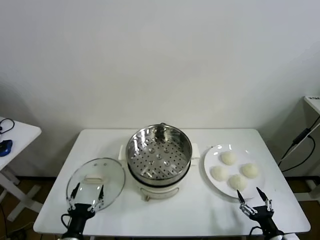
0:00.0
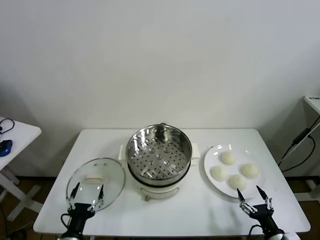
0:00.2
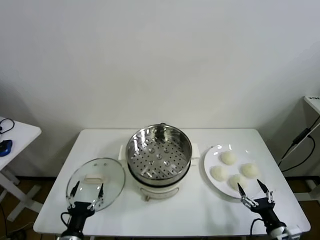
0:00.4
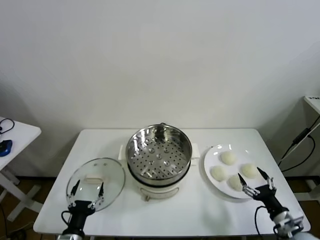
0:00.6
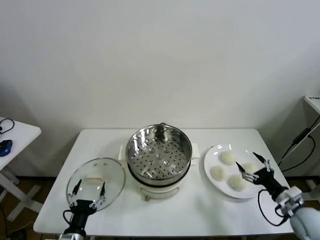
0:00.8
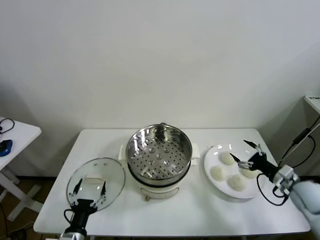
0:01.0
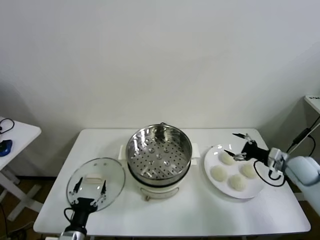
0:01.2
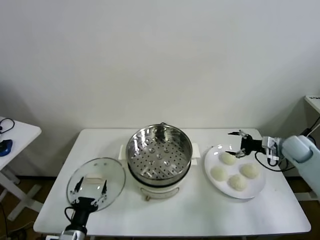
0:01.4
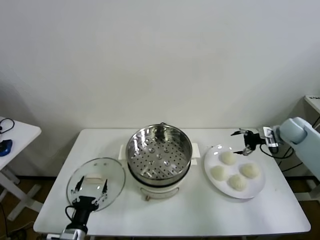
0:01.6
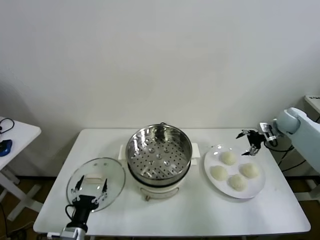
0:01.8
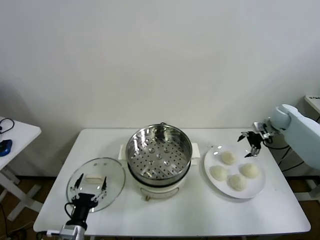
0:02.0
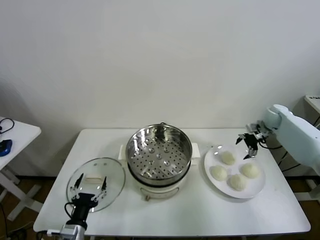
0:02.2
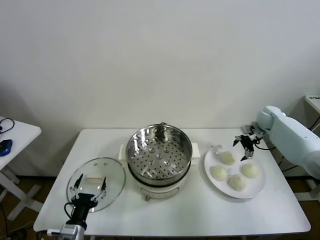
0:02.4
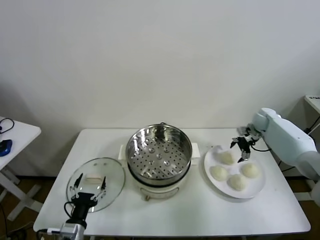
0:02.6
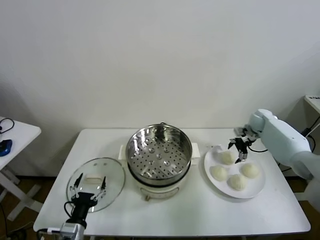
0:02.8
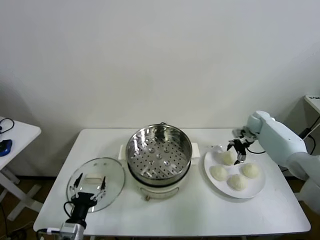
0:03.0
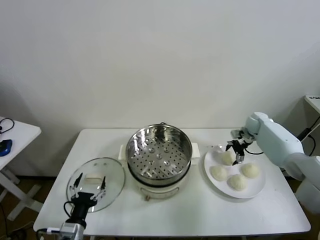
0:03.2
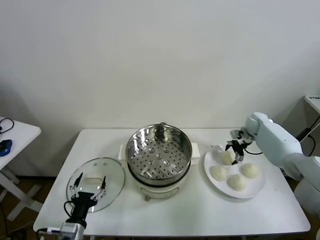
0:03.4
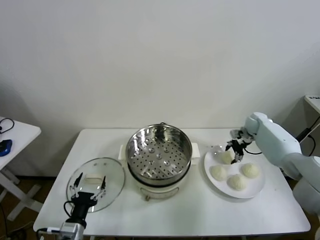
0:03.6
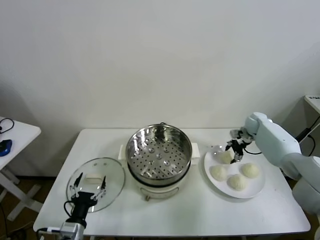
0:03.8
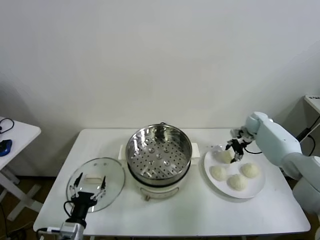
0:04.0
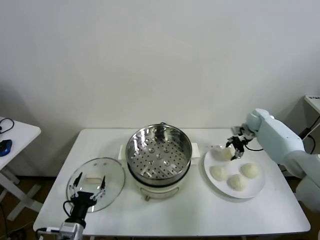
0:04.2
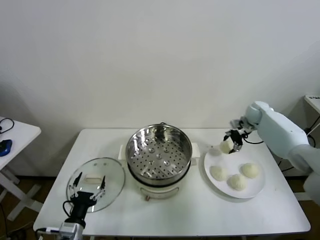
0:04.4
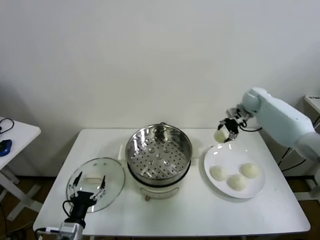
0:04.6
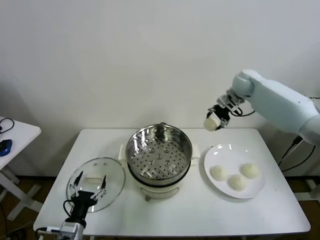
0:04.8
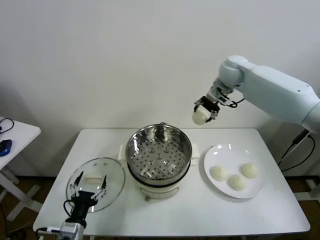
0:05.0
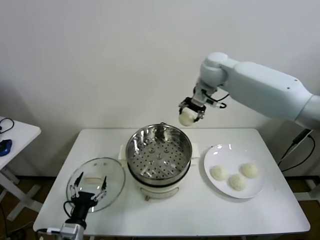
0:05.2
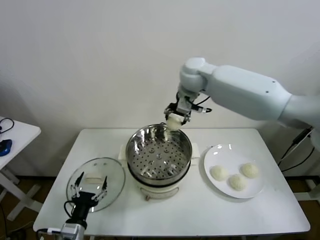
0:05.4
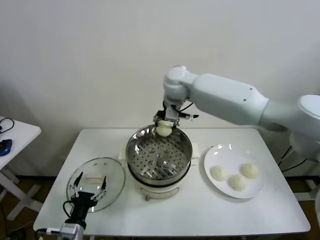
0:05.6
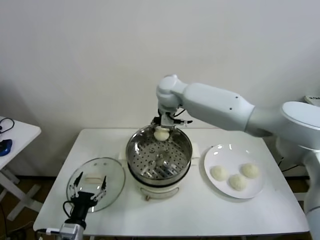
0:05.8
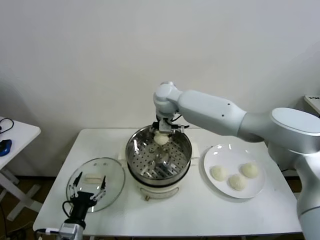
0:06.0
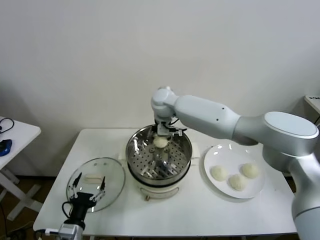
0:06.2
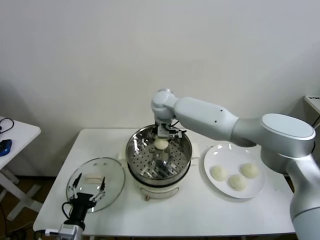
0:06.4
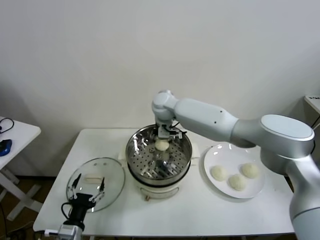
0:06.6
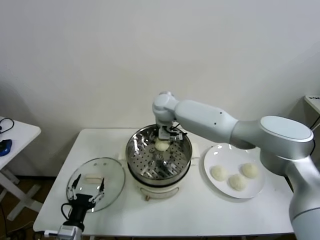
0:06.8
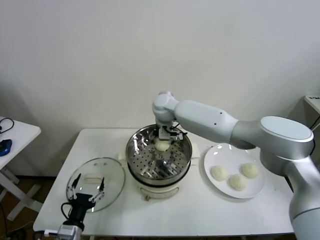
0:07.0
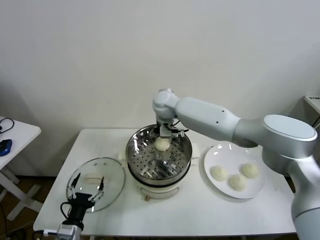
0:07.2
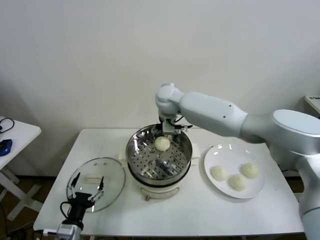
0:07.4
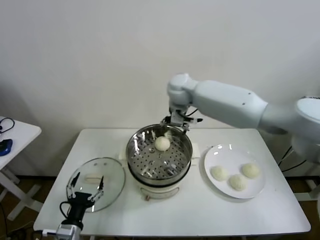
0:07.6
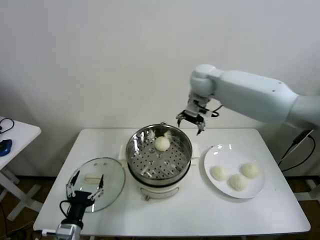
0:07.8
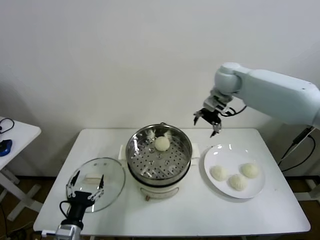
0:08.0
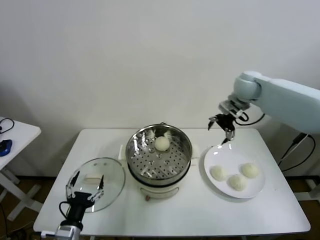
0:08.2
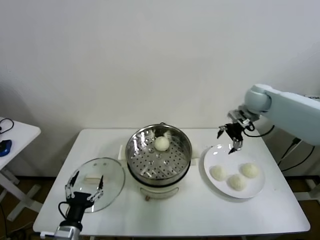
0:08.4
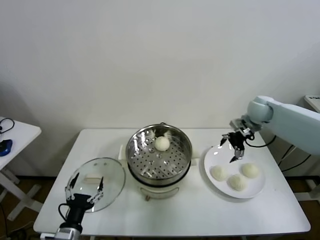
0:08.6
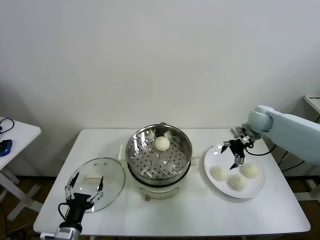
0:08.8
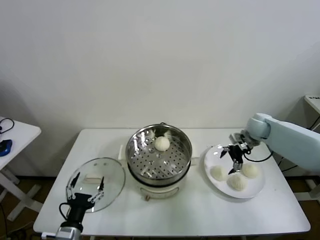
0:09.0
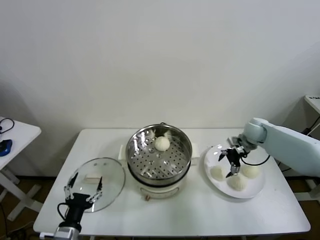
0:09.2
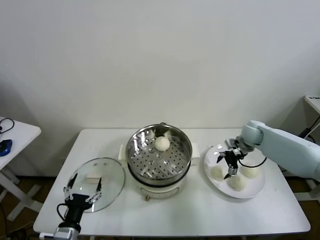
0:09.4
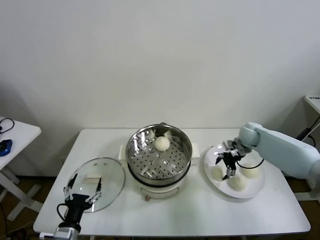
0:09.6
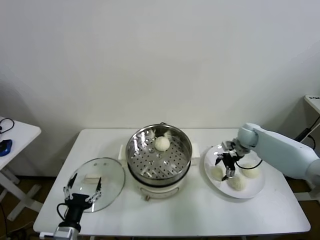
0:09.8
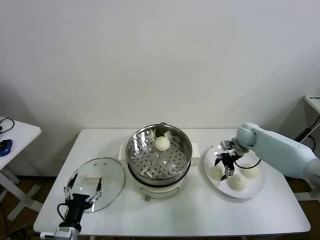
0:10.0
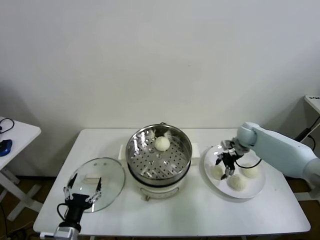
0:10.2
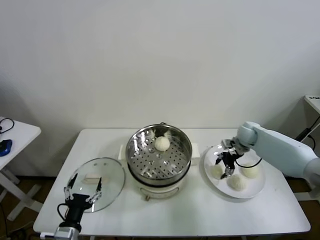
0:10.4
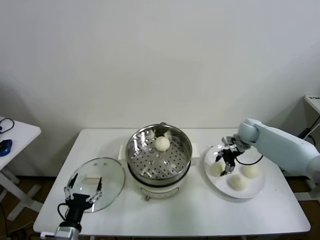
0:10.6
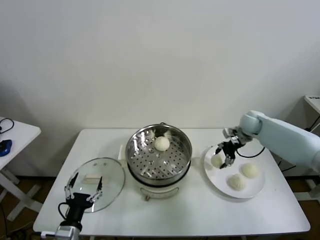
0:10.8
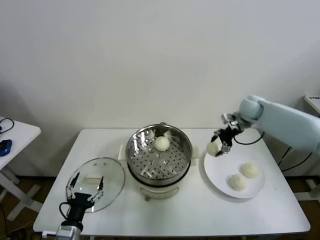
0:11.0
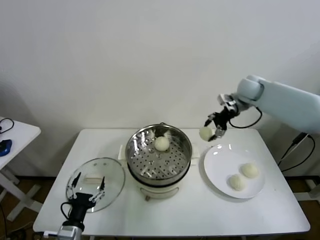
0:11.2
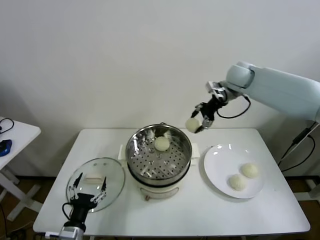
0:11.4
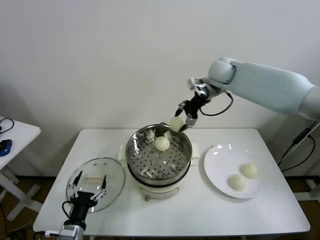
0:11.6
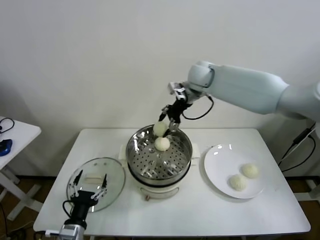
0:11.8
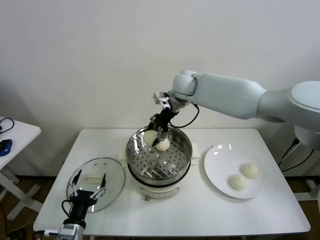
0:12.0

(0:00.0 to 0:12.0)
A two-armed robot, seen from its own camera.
Task of the whole recording: take steamed baozi put them in steamer.
Step, 0:00.0 - 0:03.8: Grasp the baozi in the plate with right gripper.
Step, 0:04.0 - 0:07.2: Place the baozi on the steamer with right gripper.
Step, 0:07.4 - 0:10.0: Grasp the baozi in the plate with right gripper.
0:01.6 - 0:03.0: The right gripper moves forward, to the left and downward, about 10 cm.
0:03.0 - 0:04.4: The right gripper travels upward by roughly 10 cm, and closes.
0:04.4 - 0:06.0: The right gripper shifts about 40 cm to the left.
0:06.0 - 0:07.6: The right gripper is displaced to the right and upward by roughly 10 cm, and opens up.
0:07.6 - 0:09.0: The right gripper is displaced to the right and downward by about 35 cm.
0:09.0 - 0:10.4: The right gripper closes.
0:10.4 - 0:12.0: The right gripper shifts roughly 35 cm to the left and upward.

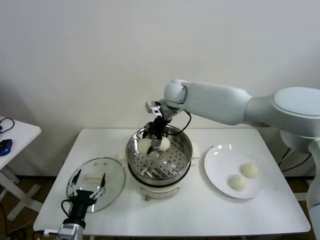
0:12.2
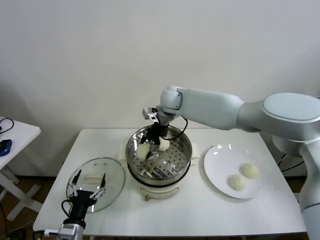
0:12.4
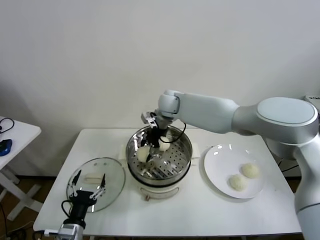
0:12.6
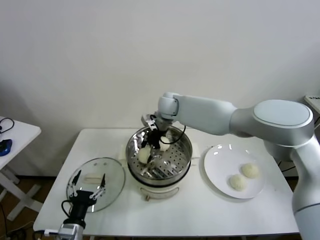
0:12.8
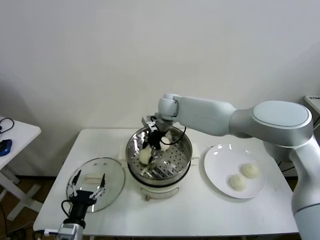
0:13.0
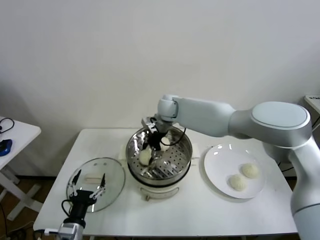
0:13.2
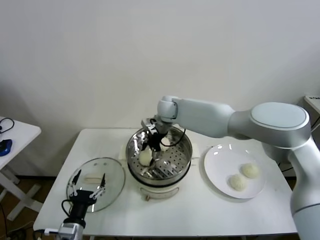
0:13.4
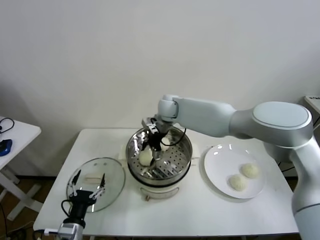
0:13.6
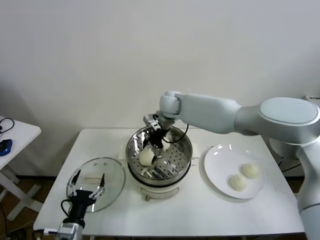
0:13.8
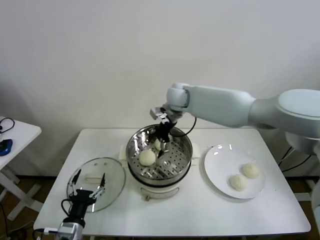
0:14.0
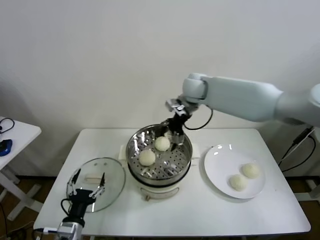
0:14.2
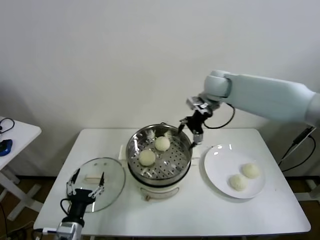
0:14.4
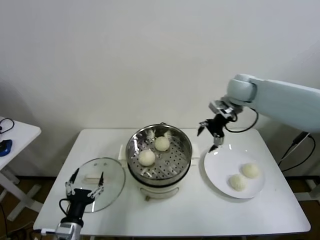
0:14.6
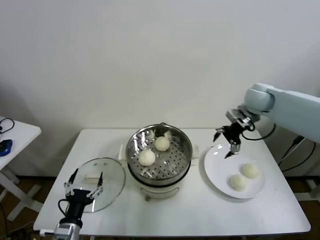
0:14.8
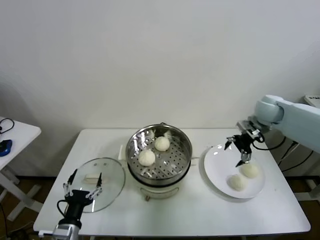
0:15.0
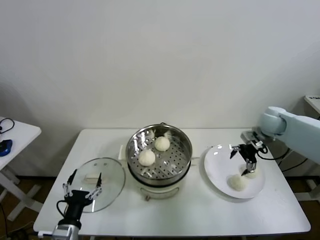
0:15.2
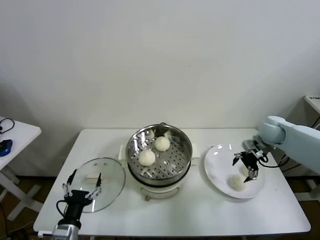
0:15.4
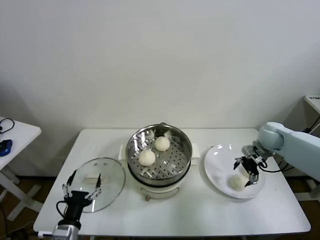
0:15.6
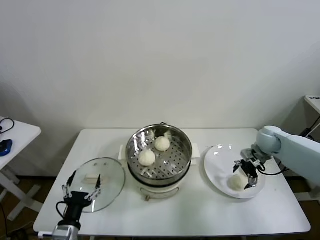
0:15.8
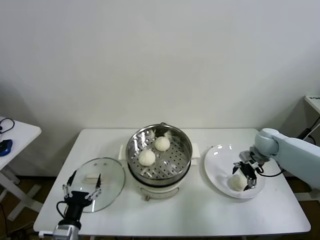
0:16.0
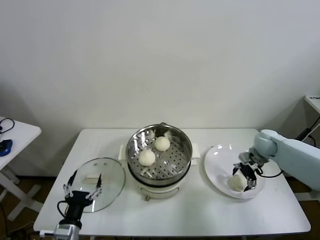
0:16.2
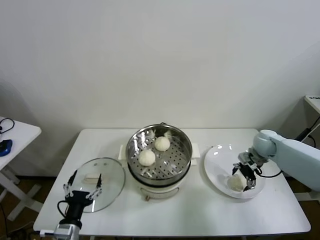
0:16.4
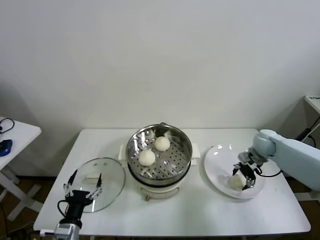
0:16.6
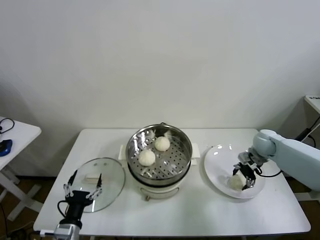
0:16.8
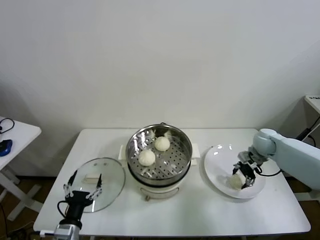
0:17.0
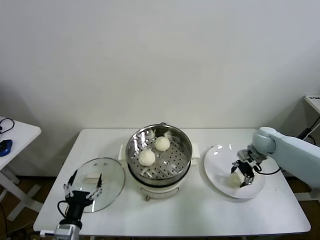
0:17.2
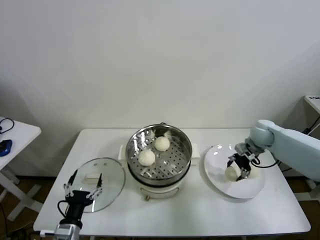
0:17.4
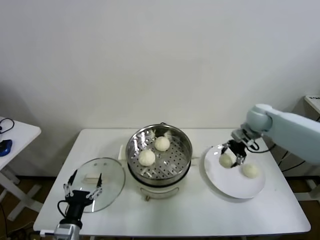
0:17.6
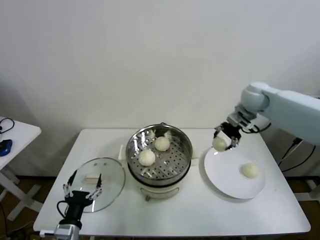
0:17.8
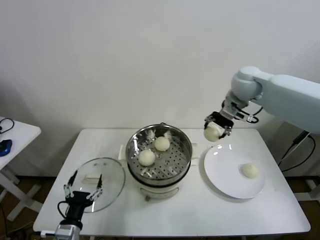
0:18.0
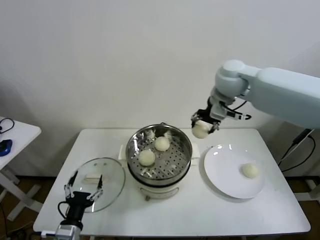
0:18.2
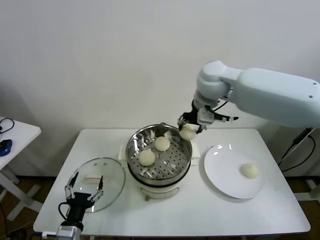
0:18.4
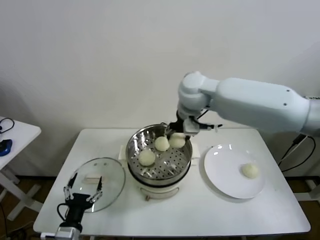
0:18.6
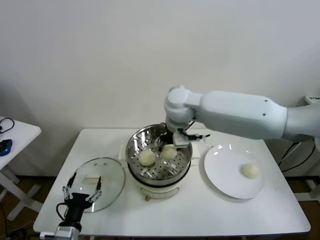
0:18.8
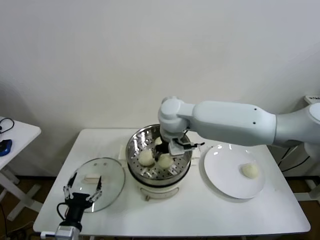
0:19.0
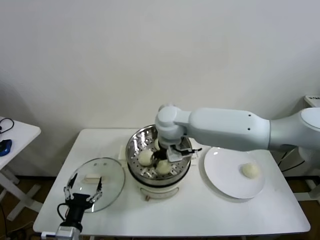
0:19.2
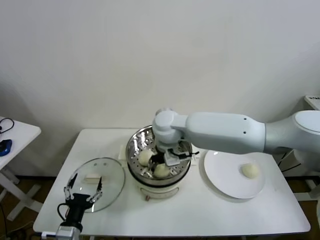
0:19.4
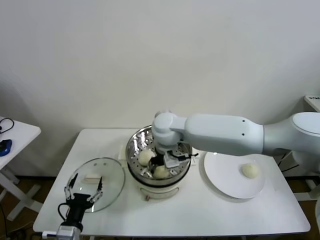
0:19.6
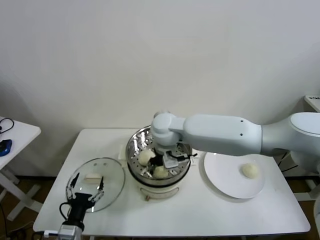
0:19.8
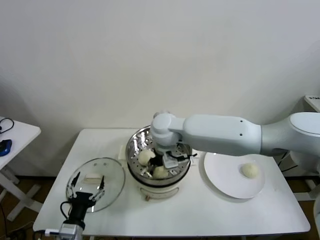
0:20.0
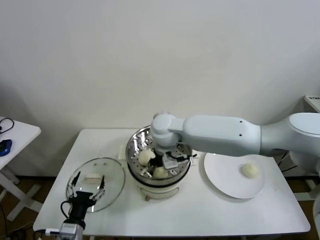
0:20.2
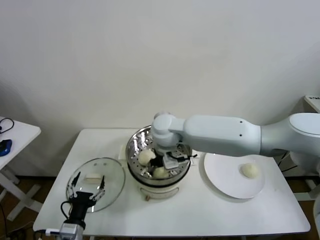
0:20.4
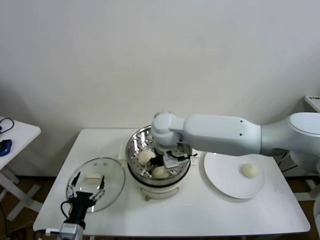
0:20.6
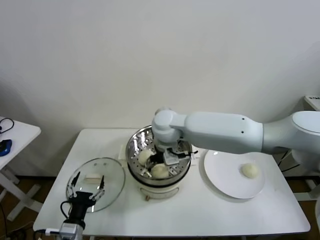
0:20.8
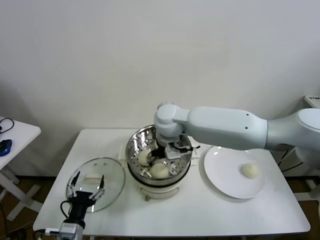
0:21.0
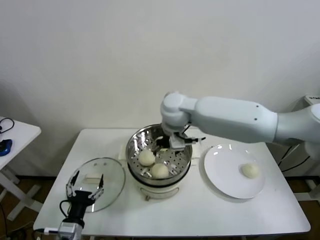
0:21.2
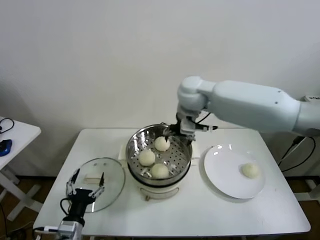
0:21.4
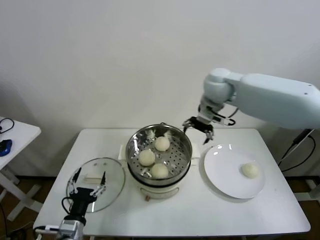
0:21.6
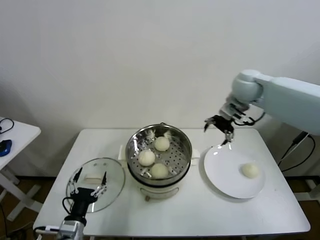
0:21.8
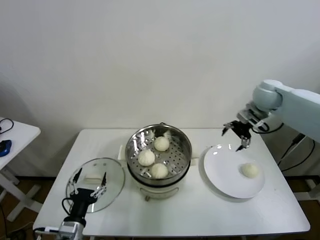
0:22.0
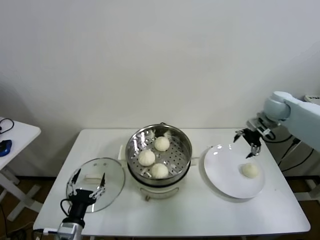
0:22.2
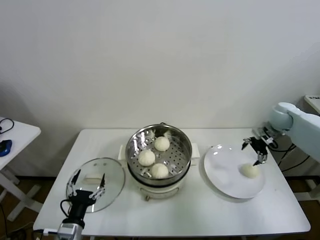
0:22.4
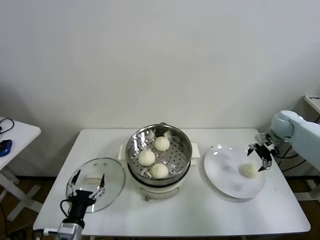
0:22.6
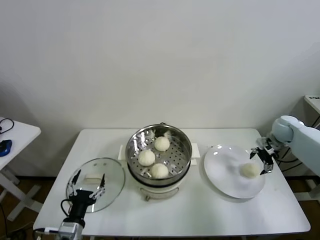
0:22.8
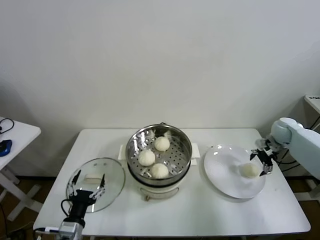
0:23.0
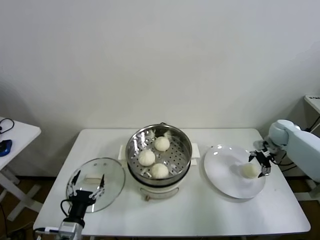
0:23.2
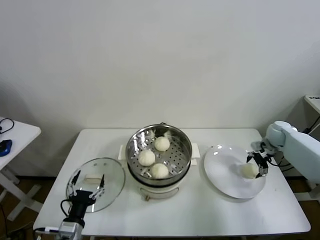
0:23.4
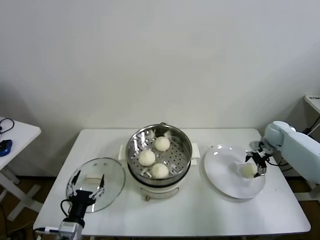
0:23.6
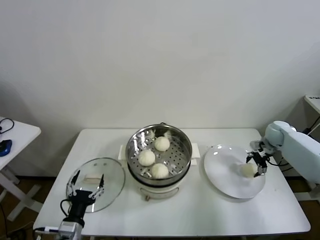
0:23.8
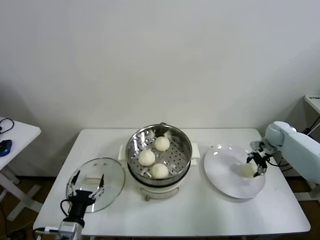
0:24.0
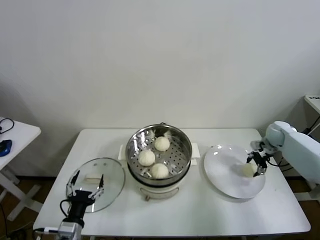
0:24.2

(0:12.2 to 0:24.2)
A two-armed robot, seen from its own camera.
Task of the whole recording: take steamed baozi put them in steamer.
Step, 0:14.0 - 0:16.6: Grasp the baozi in the plate with right gripper.
Step, 0:16.8 - 0:20.6: Place the baozi on the steamer with right gripper.
Step, 0:20.8 - 0:24.0: Grasp the baozi in the plate with right gripper.
0:12.2 - 0:13.8: The right gripper opens its fingers.
0:13.8 - 0:15.2: The right gripper heads to the right, covering some 35 cm.
0:15.2 - 0:16.6: The right gripper goes some 10 cm downward, and closes.
0:16.6 - 0:18.2: The right gripper travels upward and to the left by some 35 cm.
0:18.2 - 0:19.8: The right gripper travels to the left and downward by approximately 20 cm.
0:19.8 - 0:21.2: The right gripper travels upward by about 5 cm, and opens.
0:21.2 - 0:22.6: The right gripper travels to the right by some 40 cm.
0:22.6 - 0:24.2: The right gripper heads downward, covering roughly 5 cm, and closes its fingers.
